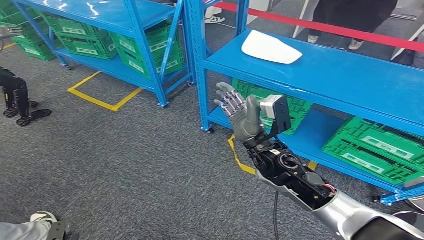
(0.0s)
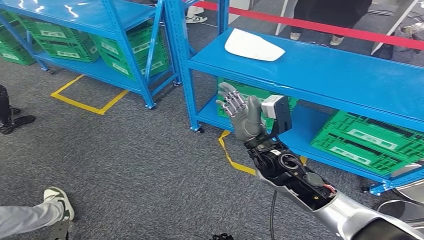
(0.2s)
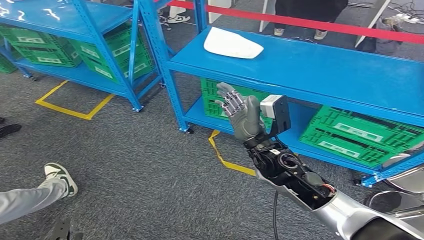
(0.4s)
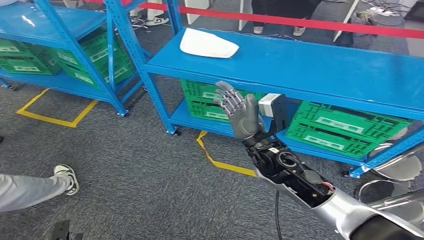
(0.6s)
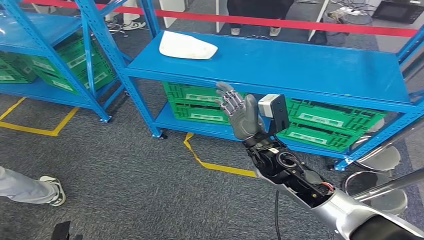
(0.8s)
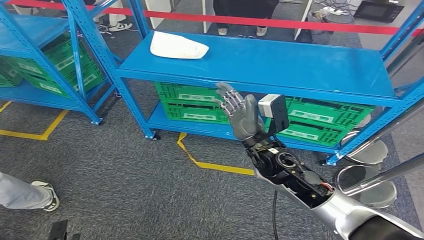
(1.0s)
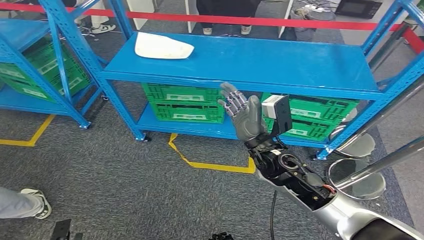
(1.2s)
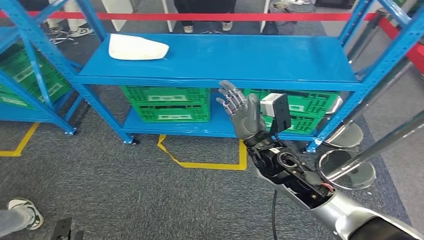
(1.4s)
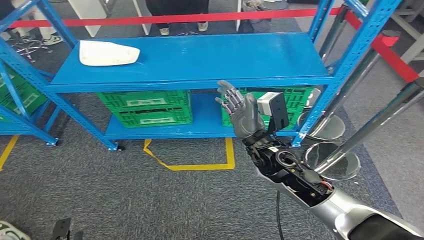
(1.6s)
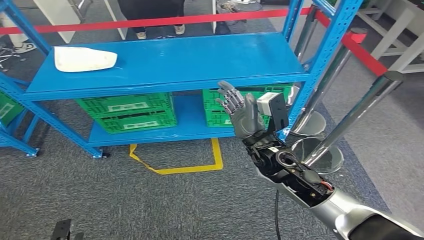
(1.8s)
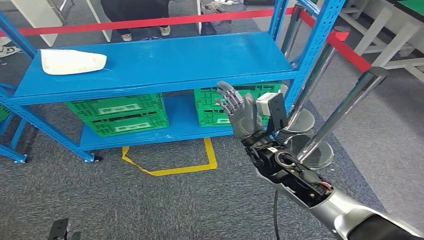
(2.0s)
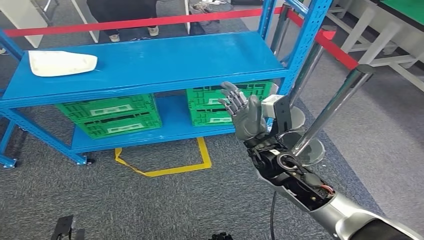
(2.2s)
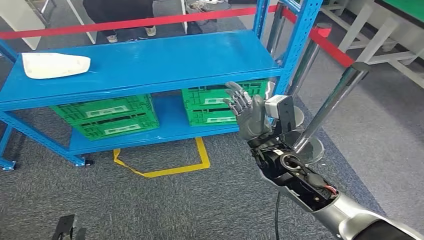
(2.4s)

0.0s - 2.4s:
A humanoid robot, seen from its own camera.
Step, 0.0s - 2.2s: Return to the initial position at the workbench.
